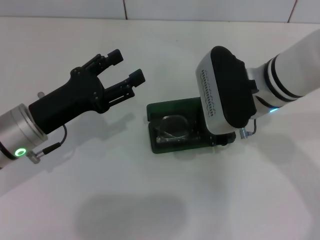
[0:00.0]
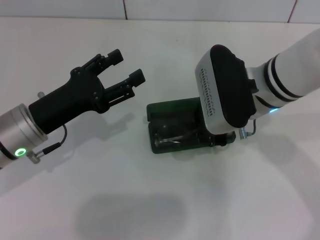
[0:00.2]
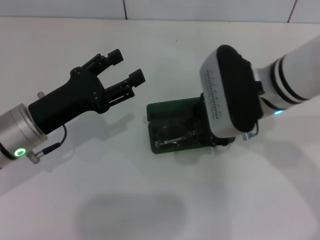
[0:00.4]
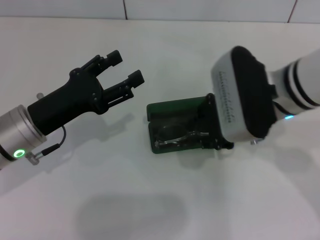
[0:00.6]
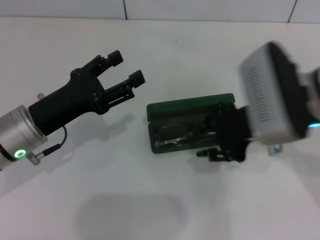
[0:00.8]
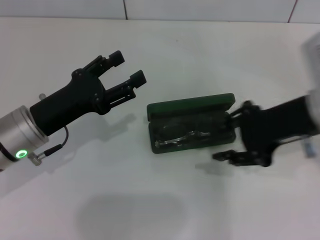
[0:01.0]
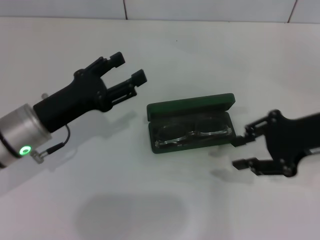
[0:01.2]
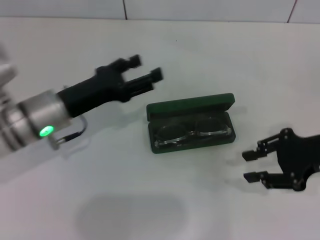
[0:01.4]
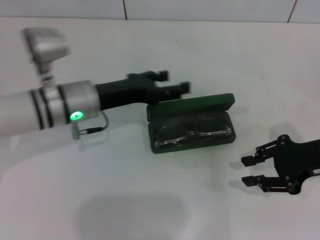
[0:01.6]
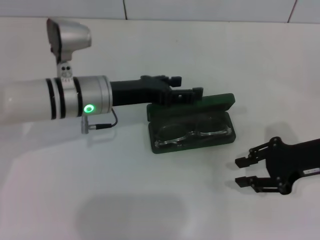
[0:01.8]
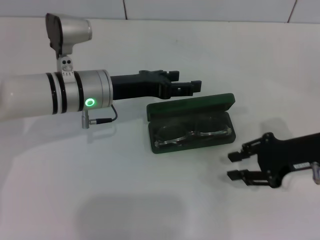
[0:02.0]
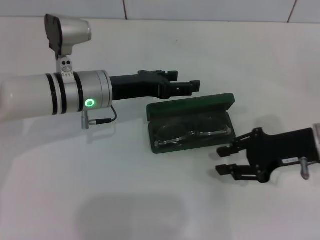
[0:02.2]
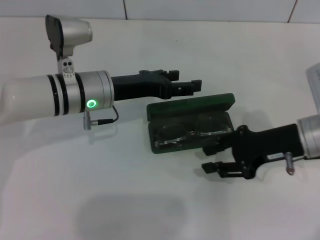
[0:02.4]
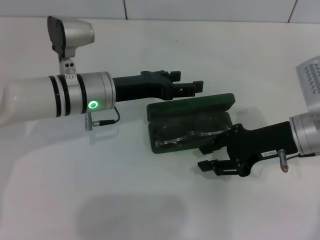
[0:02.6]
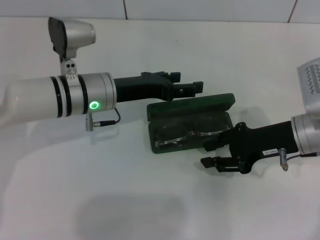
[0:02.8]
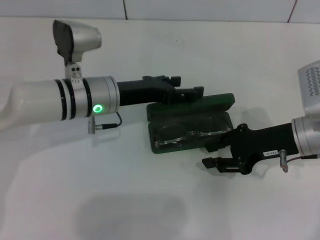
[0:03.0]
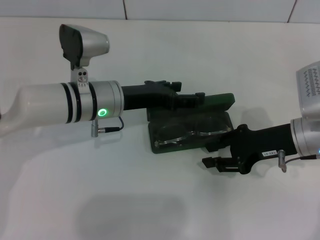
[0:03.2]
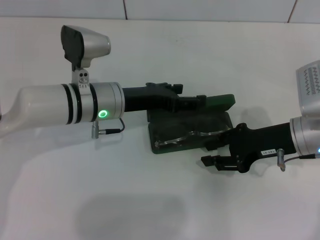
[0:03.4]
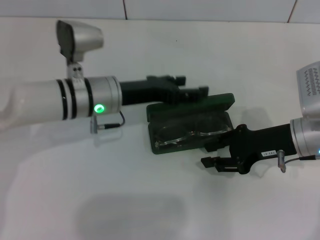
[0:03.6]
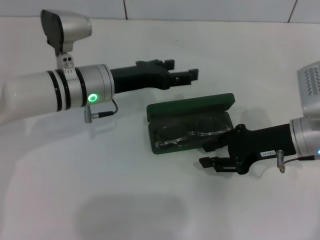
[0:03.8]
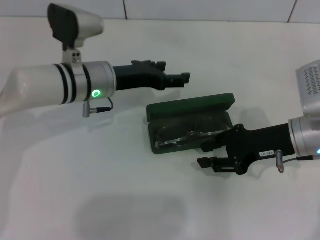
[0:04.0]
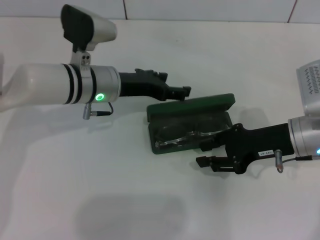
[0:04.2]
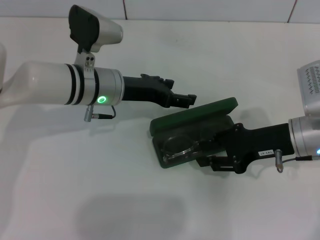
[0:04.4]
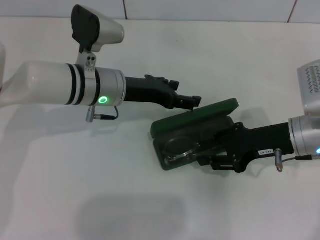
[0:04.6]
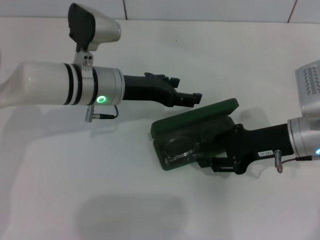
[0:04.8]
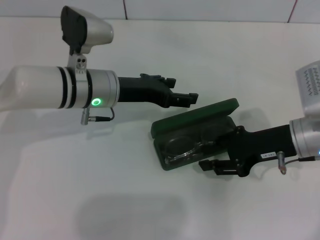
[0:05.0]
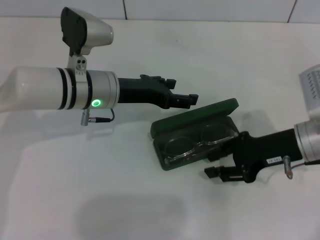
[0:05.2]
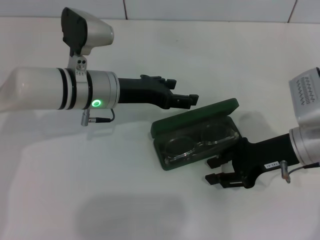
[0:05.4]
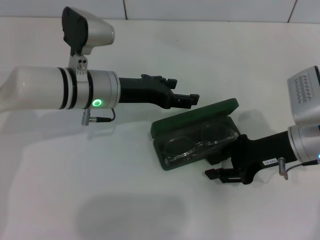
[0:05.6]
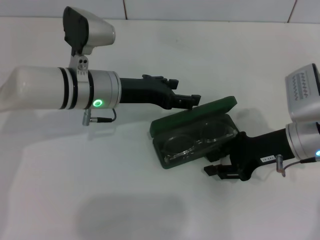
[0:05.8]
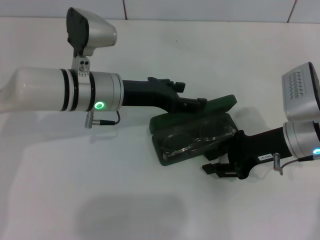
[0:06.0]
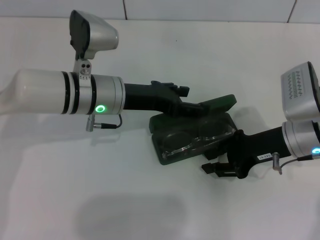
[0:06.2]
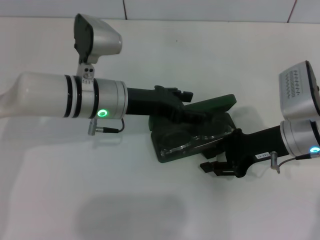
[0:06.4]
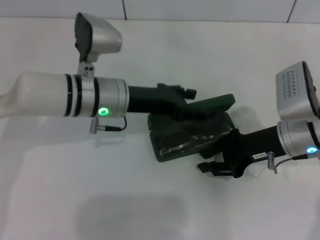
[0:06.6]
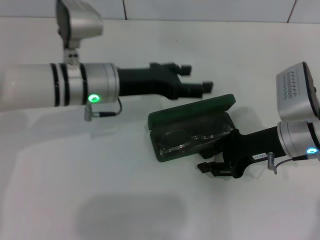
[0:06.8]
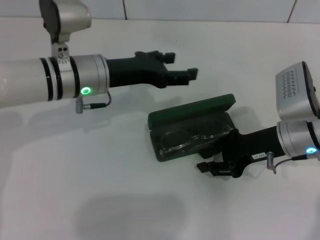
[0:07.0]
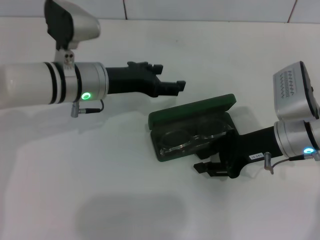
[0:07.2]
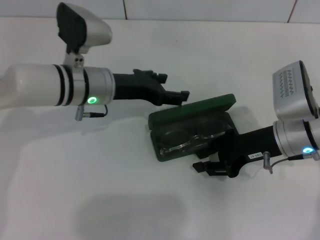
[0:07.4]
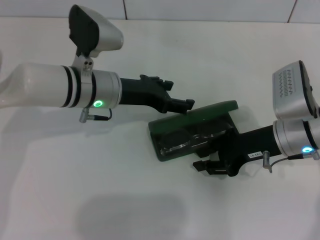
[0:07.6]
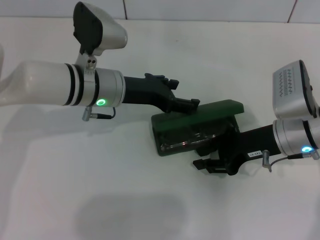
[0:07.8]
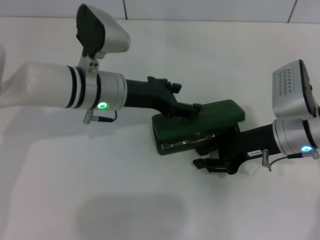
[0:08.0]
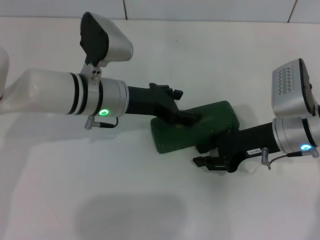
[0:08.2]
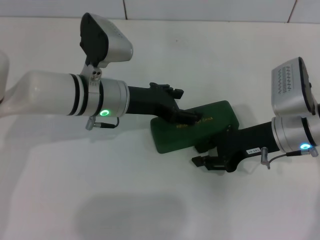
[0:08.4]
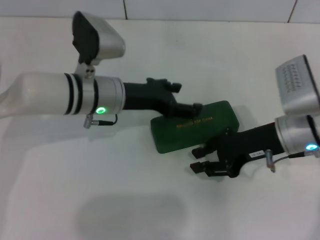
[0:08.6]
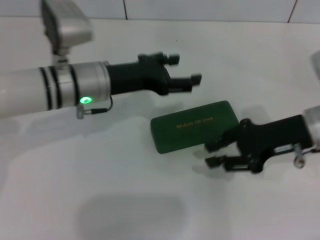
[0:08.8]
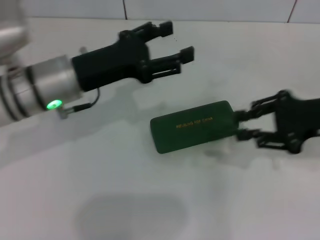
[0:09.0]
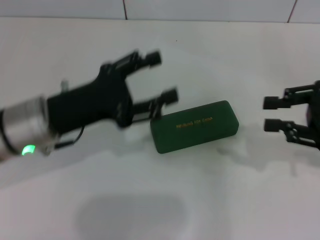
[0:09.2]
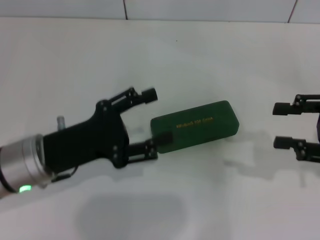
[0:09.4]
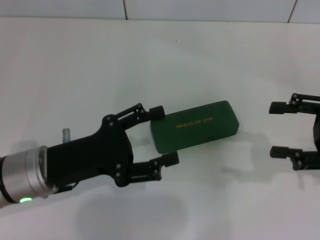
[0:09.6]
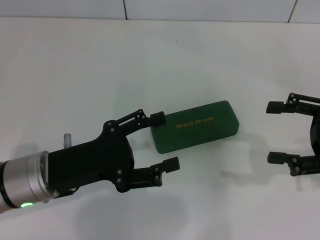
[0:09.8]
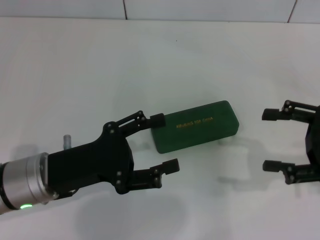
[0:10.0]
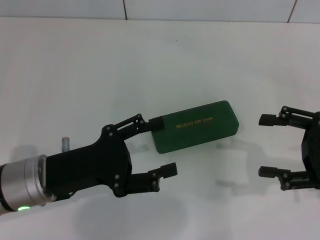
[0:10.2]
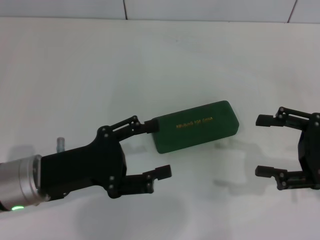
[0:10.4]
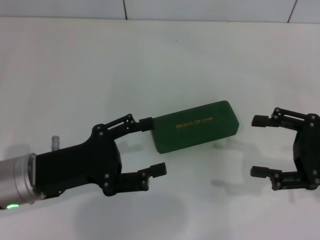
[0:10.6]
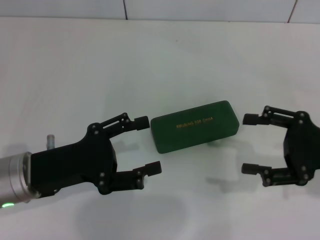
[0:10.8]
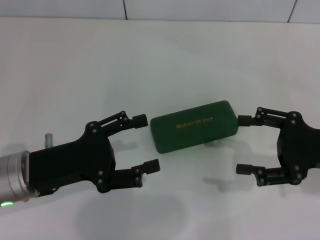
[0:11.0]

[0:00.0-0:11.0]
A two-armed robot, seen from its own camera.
Step, 0:00.4 to 0:08.4: Close the glasses case with your left hand.
0:00.0 to 0:01.6: The left gripper goes some 10 cm forward and to the right, while the right gripper goes some 15 cm to the right, and opens.
0:01.6 to 0:03.2: The right gripper moves to the left, approximately 5 cm.
0:03.2 to 0:07.8: The grippers make only small movements.
0:07.8 to 0:09.4: The left gripper shifts roughly 15 cm backward and to the left. Meanwhile the right gripper is displaced to the right, upward and backward by roughly 15 cm.
0:09.4 to 0:11.0: The right gripper shifts by some 5 cm, and opens up.

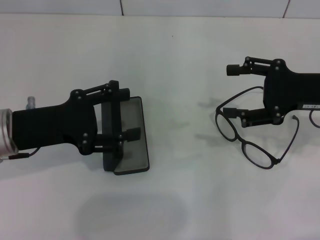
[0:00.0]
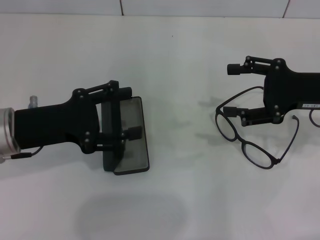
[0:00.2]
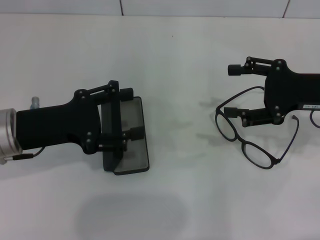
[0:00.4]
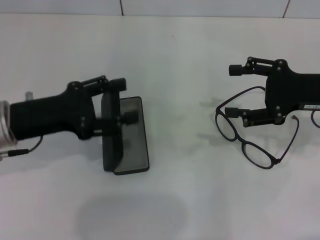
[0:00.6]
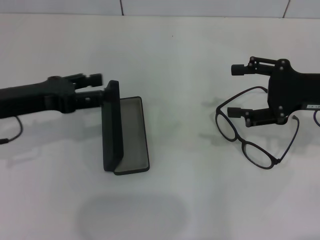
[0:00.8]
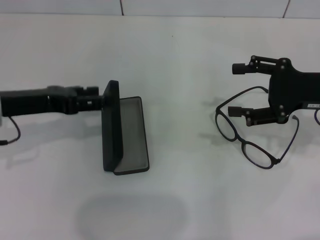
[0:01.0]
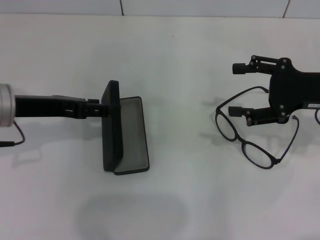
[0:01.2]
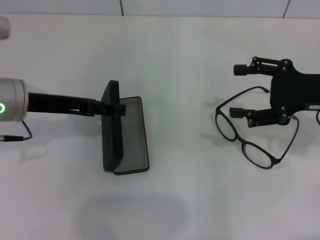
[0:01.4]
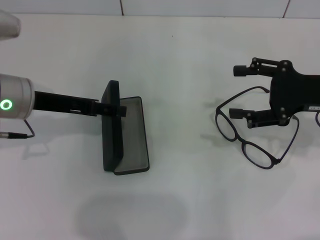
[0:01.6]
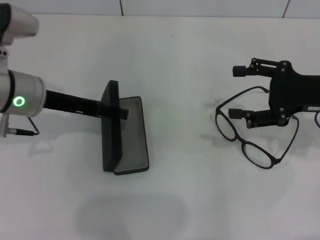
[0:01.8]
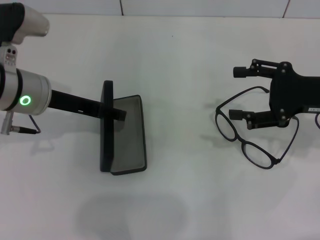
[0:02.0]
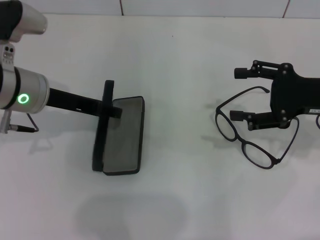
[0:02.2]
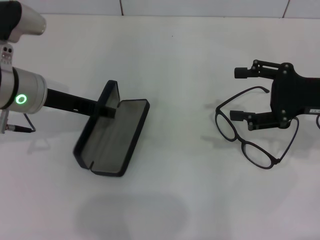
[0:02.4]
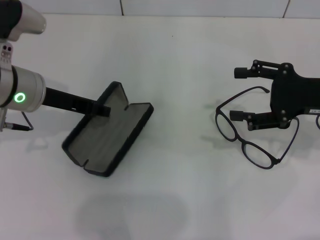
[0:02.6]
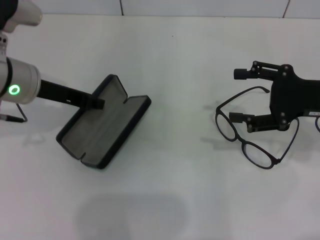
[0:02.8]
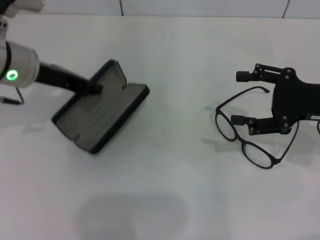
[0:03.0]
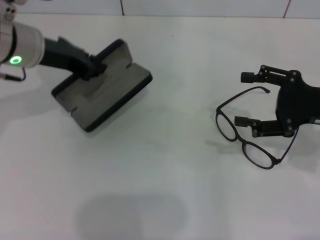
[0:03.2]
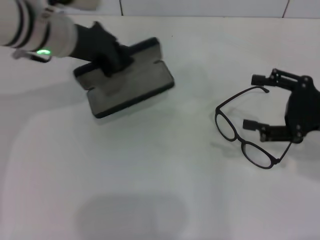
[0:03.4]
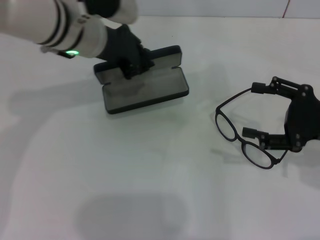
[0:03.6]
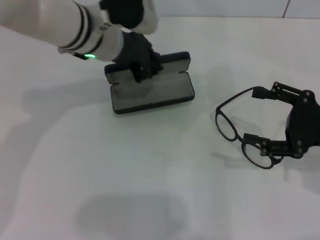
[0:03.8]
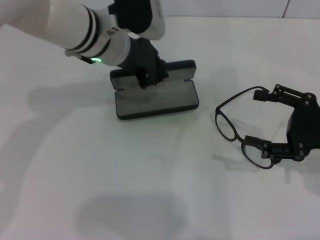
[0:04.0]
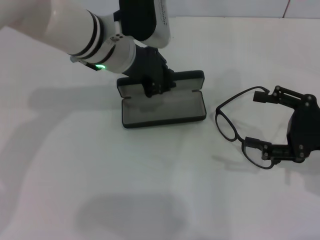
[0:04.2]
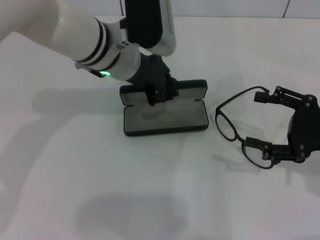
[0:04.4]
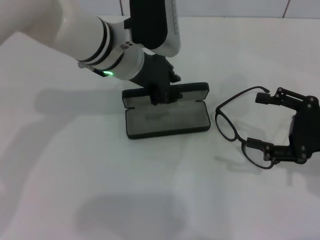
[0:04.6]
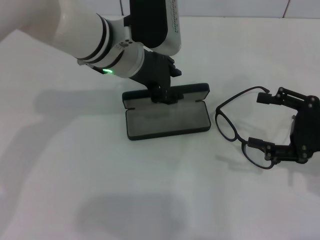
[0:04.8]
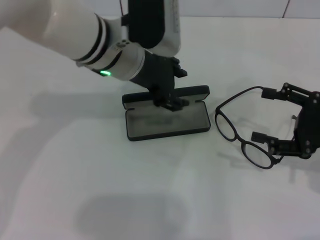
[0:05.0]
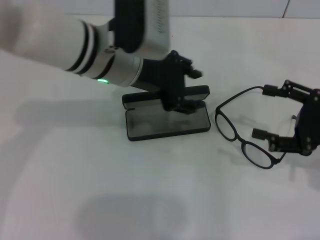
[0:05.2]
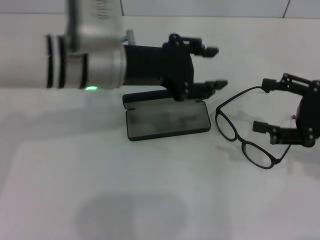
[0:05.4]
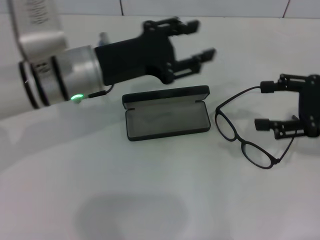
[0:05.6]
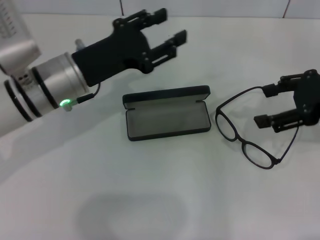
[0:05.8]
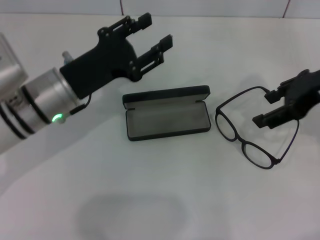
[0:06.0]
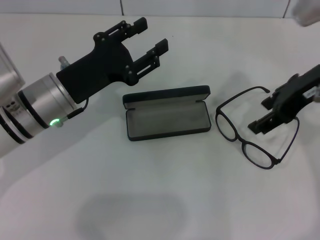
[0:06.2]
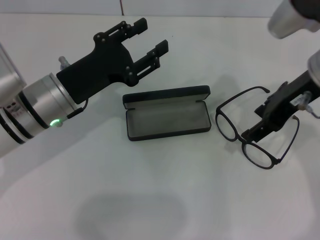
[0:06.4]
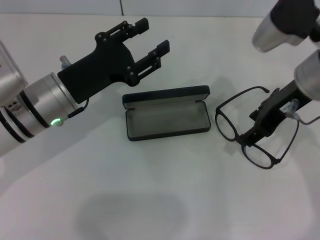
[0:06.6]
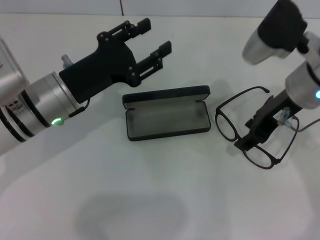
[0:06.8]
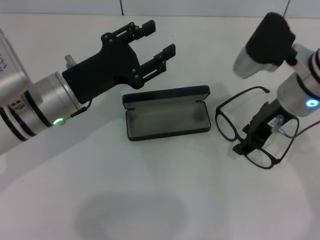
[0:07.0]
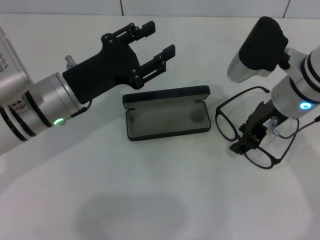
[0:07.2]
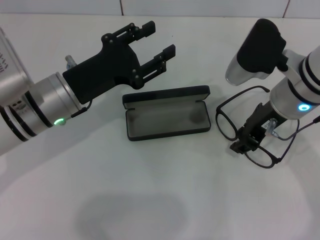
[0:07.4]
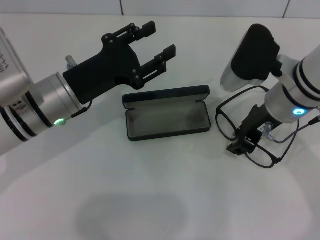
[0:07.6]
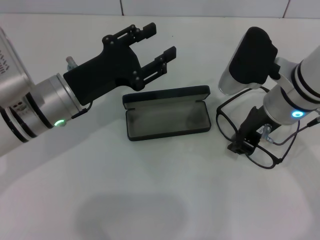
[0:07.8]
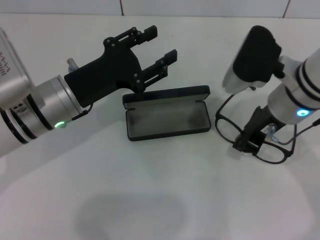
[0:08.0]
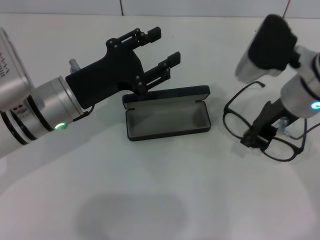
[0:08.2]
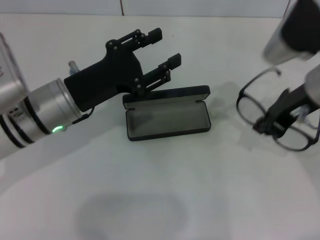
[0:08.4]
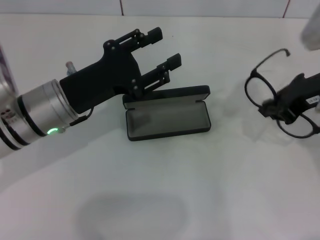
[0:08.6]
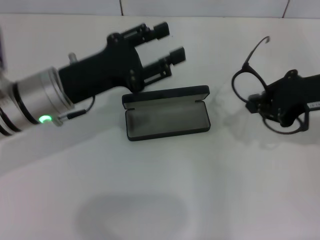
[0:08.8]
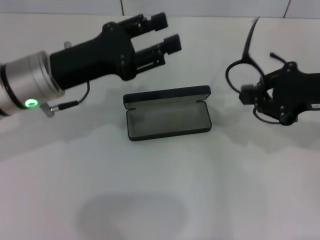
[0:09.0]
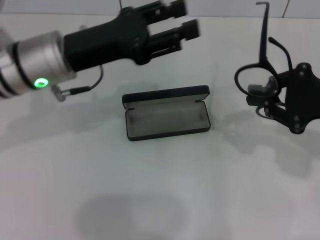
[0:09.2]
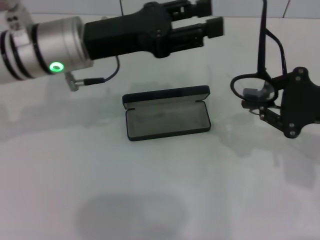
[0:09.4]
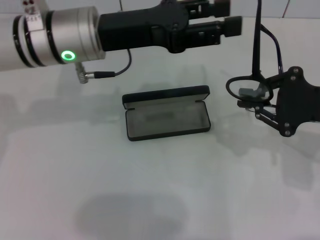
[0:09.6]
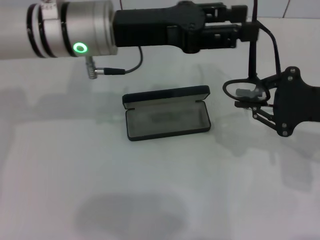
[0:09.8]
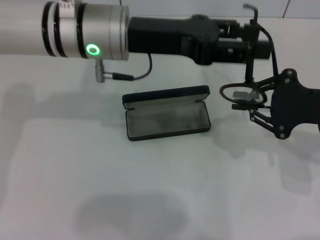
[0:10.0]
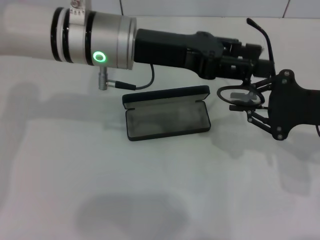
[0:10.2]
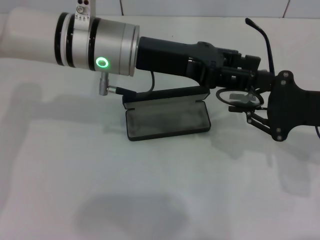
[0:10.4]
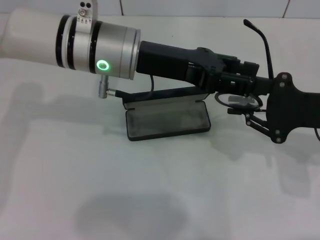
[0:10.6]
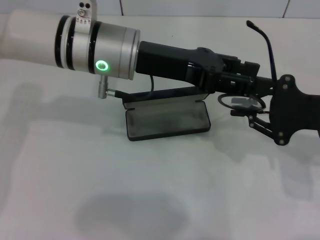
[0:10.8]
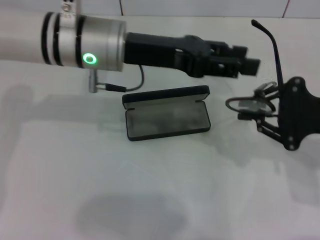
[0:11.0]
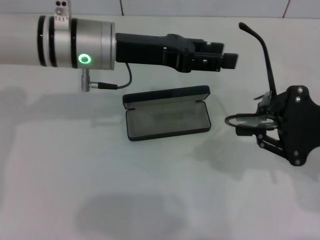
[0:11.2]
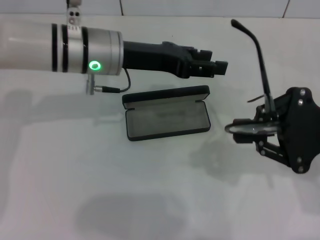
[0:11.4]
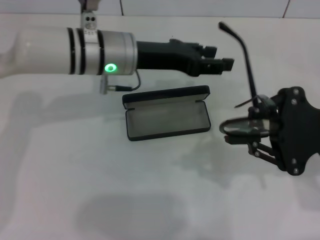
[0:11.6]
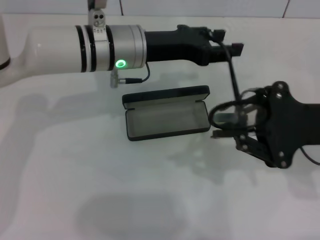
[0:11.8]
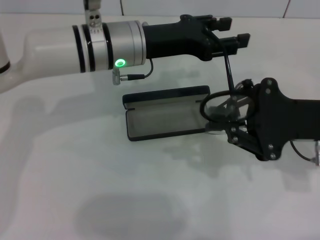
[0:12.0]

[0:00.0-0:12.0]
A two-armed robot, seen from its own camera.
Step, 0:00.0 to 0:02.2: Grab the glasses case with your left hand.
Step, 0:02.4 to 0:04.6: Place the glasses case in the center of the table with your left hand.
Step, 0:05.0 to 0:07.8: Grab the eyeglass frame with your right hand.
0:00.0 to 0:01.6: The left gripper goes some 5 cm forward.
0:01.6 to 0:03.0: The left gripper closes up.
0:03.0 to 0:04.4: The right gripper ends up about 5 cm from where it was. Meanwhile the left gripper travels to the right by approximately 15 cm.
0:04.4 to 0:06.0: The right gripper travels upward, forward and to the left by some 15 cm; the left gripper travels to the left, backward and downward by approximately 15 cm, and opens its fingers.
0:06.0 to 0:07.6: The right gripper goes roughly 10 cm to the left and downward, and closes up.
0:07.6 to 0:09.0: The right gripper heads to the right, covering roughly 10 cm, and closes its fingers.
0:09.0 to 0:10.4: The left gripper shifts approximately 10 cm to the right.
